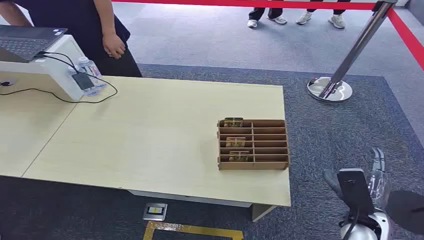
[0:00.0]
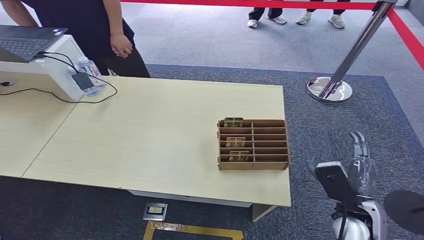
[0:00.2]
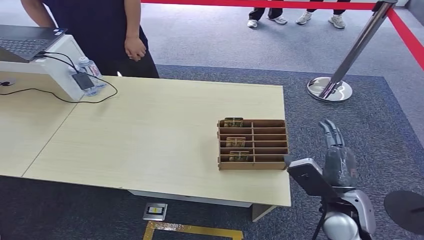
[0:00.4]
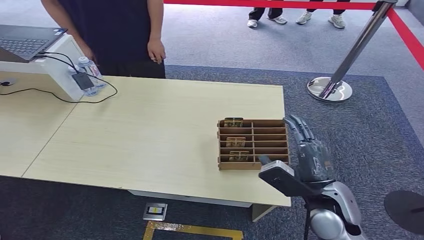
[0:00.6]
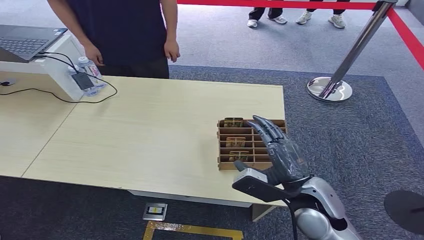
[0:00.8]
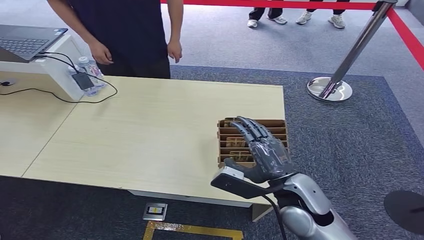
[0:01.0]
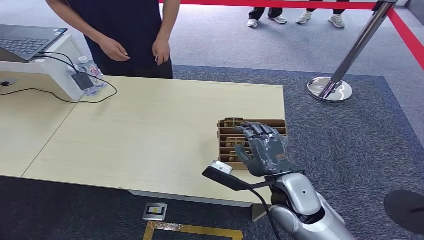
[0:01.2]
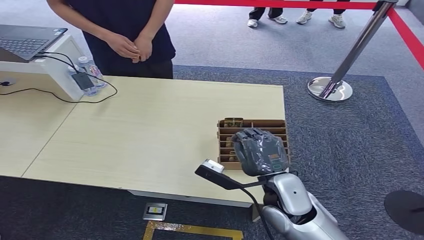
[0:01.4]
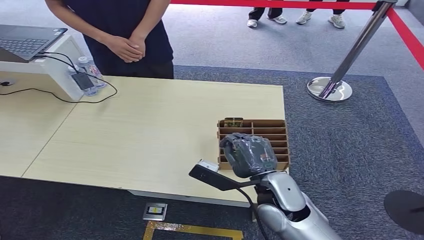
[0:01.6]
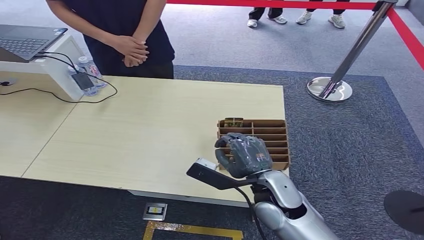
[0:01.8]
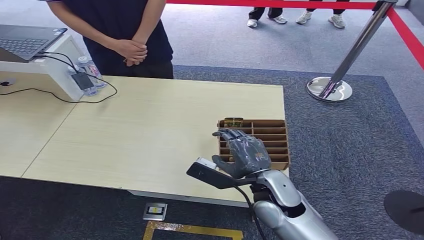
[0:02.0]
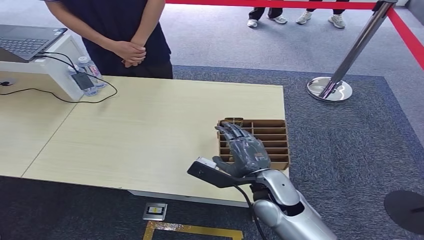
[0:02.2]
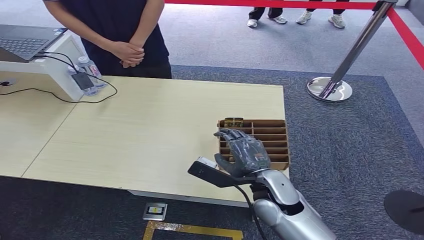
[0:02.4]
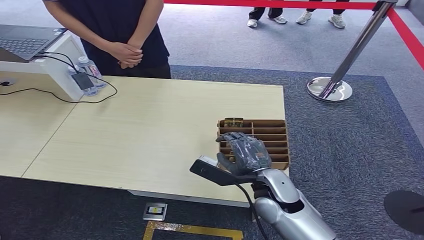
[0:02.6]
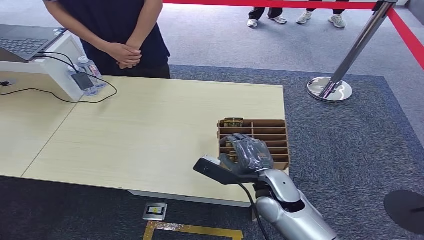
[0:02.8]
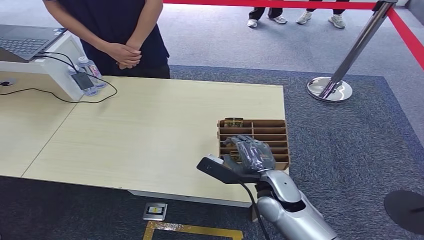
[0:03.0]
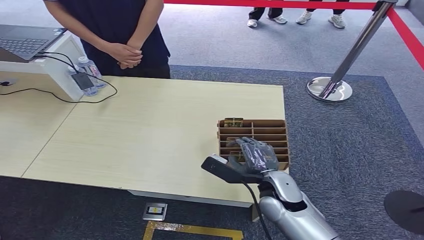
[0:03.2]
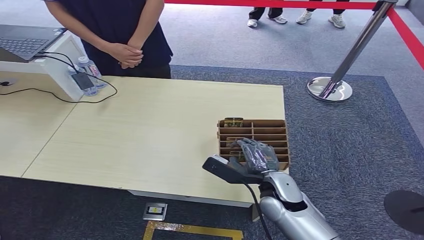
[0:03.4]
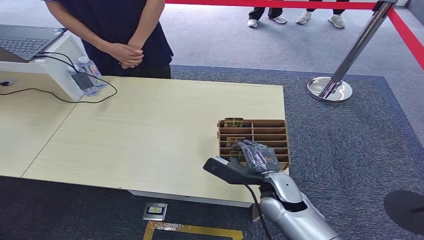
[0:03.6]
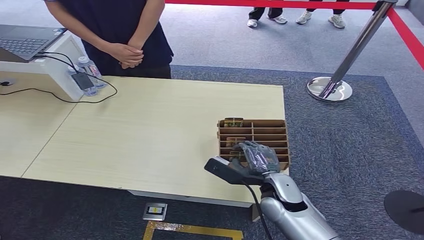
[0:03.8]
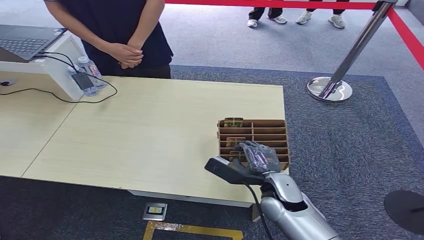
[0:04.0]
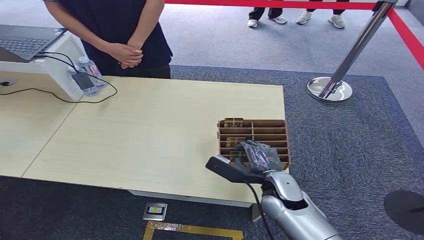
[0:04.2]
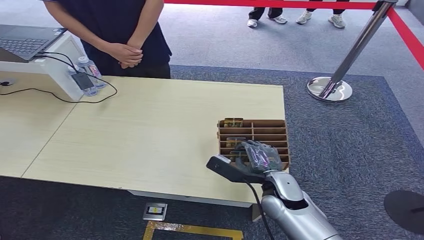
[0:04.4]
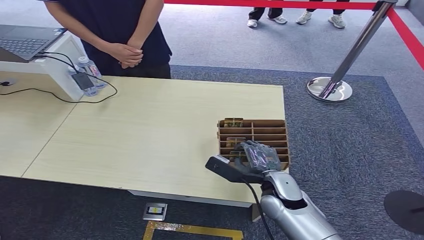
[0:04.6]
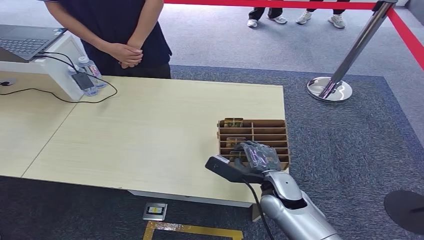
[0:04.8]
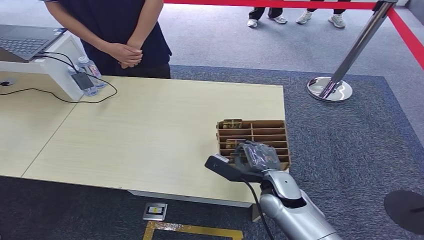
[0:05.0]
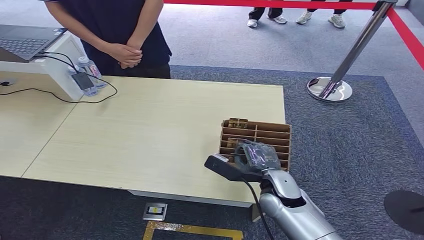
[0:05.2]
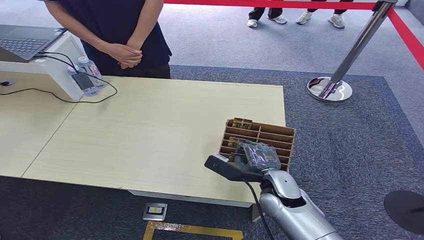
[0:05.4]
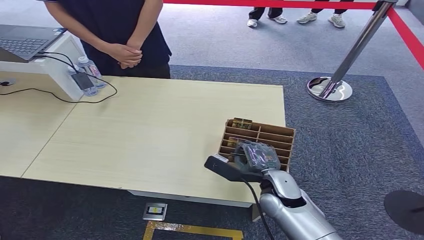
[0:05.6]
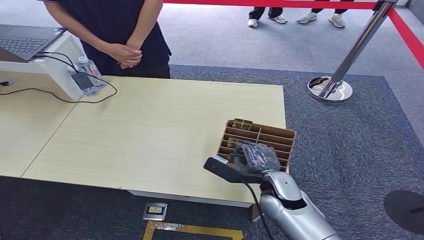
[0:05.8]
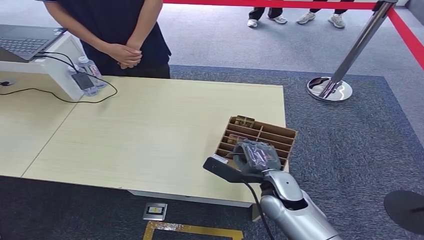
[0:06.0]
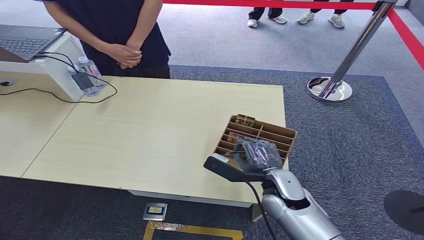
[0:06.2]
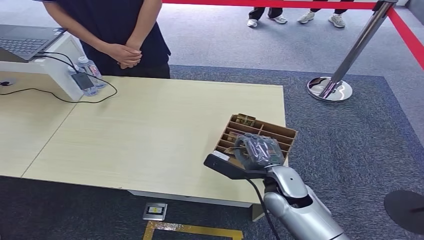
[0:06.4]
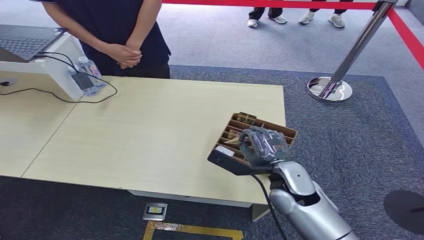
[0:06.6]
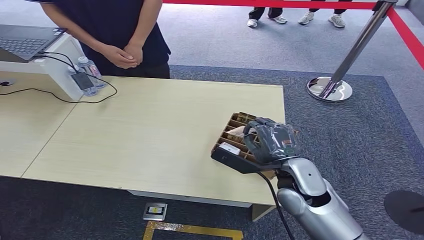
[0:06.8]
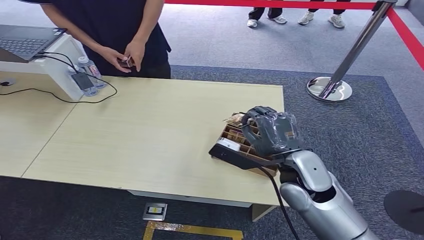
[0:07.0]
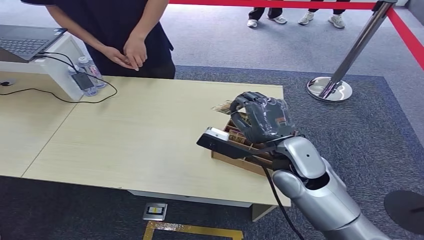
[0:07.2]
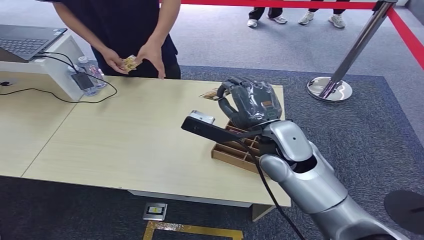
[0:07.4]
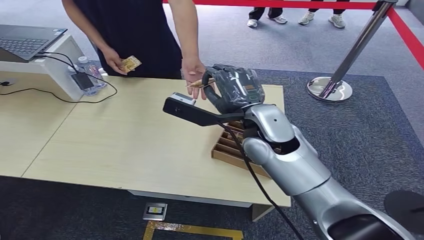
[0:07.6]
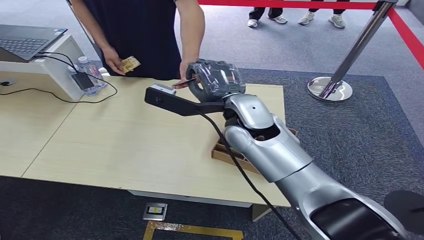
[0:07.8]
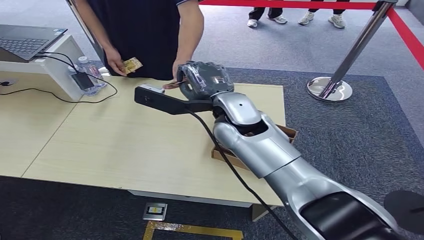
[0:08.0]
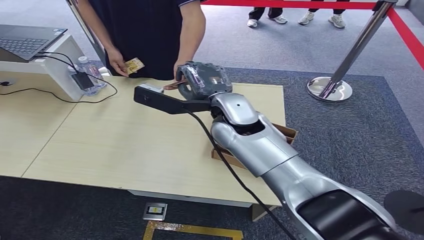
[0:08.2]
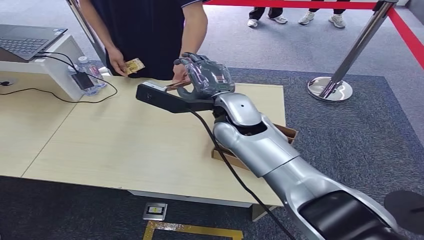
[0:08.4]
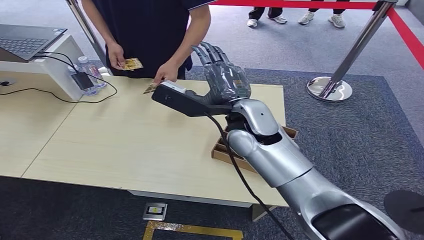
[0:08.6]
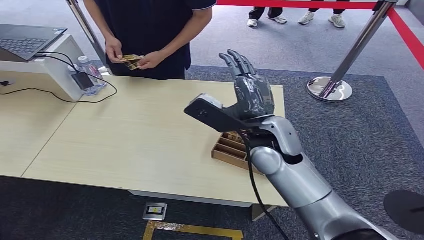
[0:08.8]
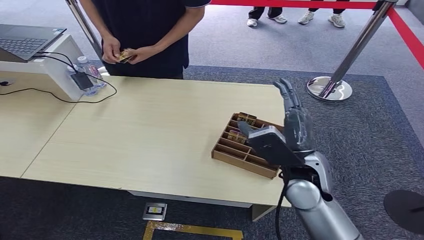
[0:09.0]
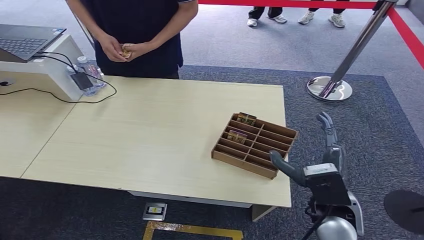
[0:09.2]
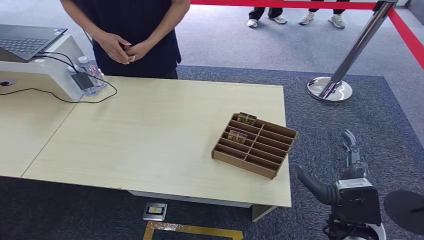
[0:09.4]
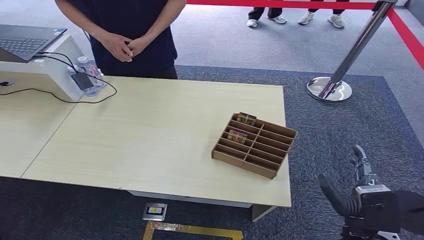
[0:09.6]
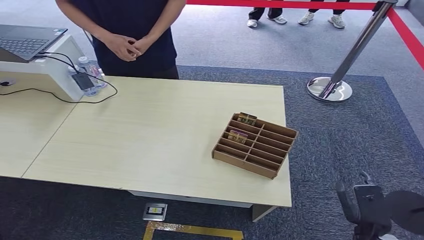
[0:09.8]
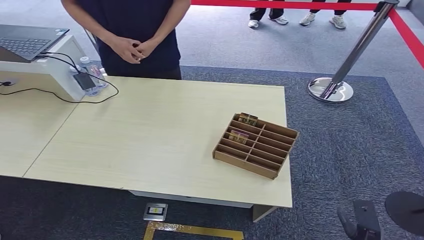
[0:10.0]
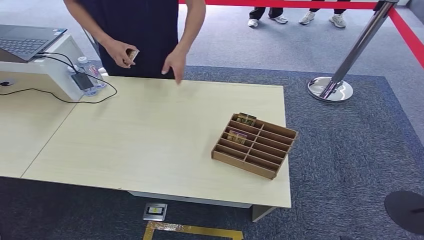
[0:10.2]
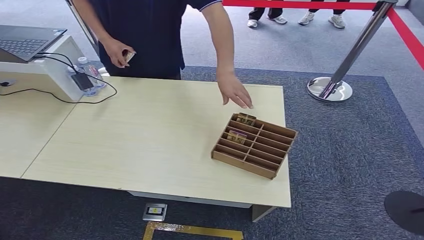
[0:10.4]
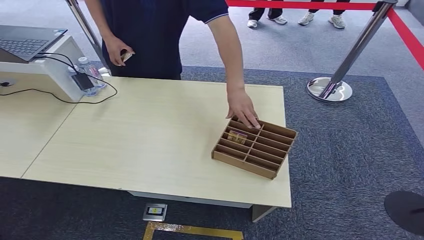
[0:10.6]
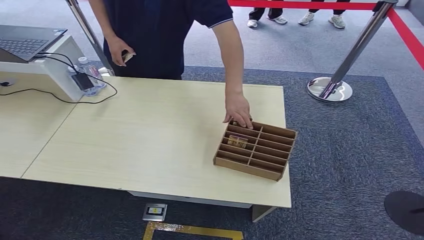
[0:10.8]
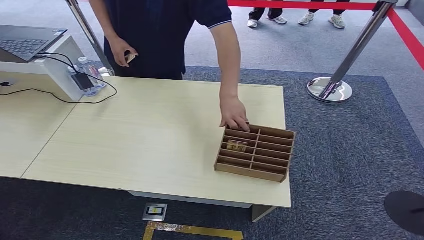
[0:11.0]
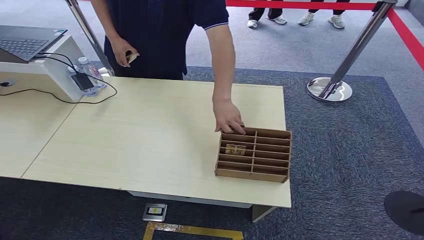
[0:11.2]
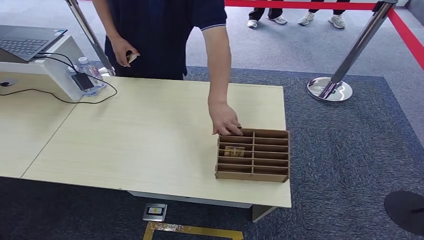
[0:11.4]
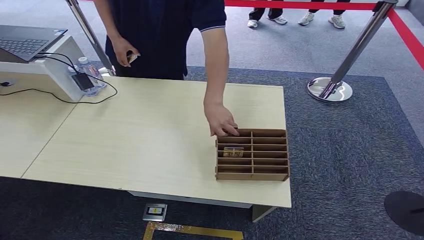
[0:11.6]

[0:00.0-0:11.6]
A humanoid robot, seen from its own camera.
Step, 0:00.0 to 0:06.8: Pick up the room card from the card holder.
Step, 0:07.0 to 0:11.4: Hand the room card to the target.
0:01.4 to 0:02.8: There are only small adjustments of the hands.
0:02.8 to 0:04.4: The hands make only small movements.
0:04.4 to 0:05.8: Neither hand changes place.
0:05.8 to 0:07.2: The right hand moves upward, roughly 15 cm.
0:08.8 to 0:10.2: The right hand goes some 50 cm downward, backward and to the right.
0:10.2 to 0:11.6: The right hand shifts roughly 10 cm to the left.

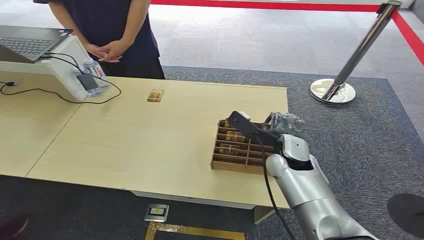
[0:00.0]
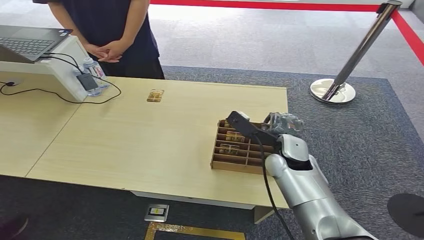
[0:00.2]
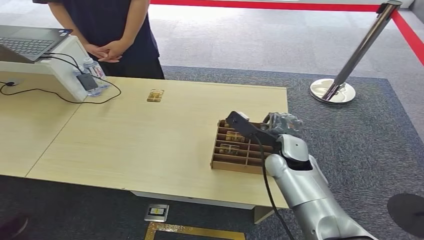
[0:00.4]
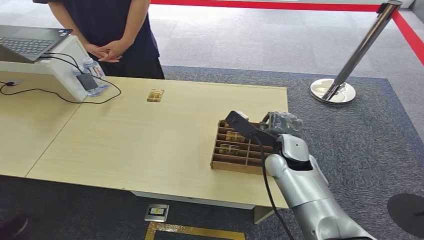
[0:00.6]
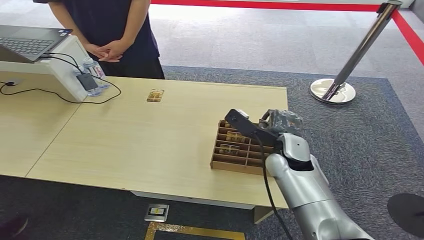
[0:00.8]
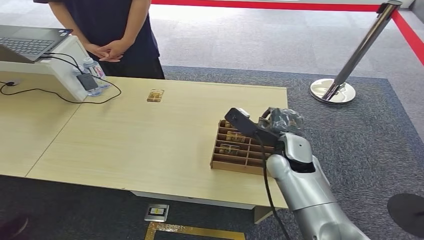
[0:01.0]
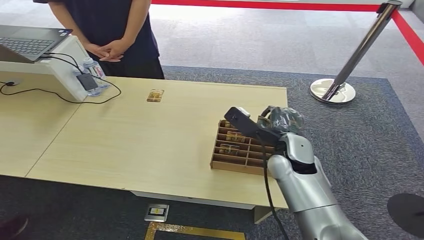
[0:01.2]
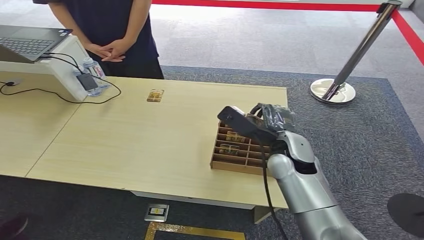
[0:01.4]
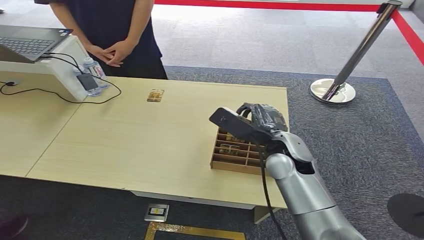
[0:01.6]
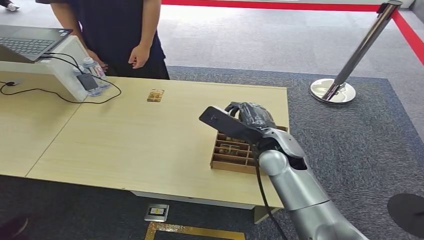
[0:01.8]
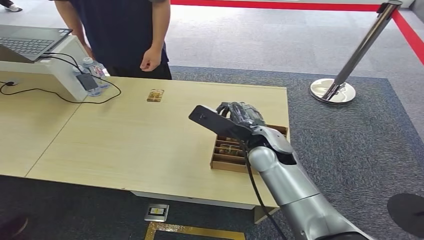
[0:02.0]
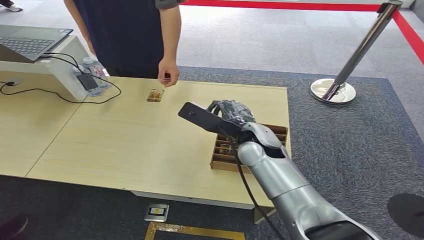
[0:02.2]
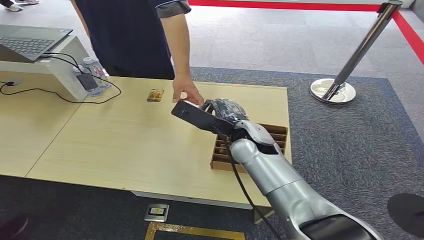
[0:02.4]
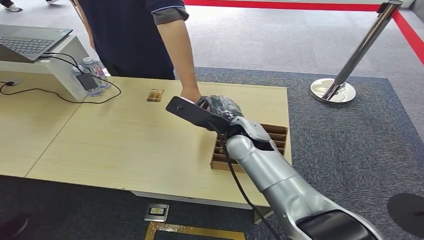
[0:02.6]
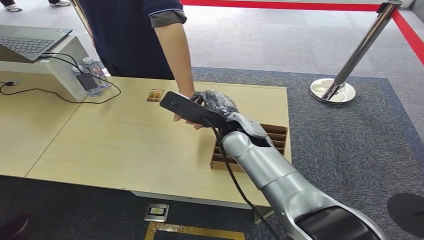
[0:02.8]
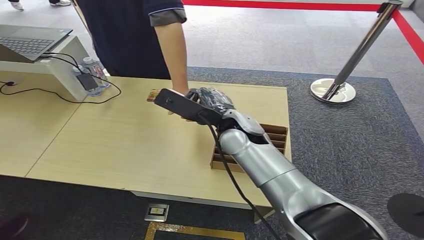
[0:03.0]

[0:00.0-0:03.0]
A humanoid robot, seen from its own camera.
Step, 0:00.0 to 0:02.0: Pick up the room card from the card holder.
Step, 0:02.2 to 0:03.0: Hand the room card to the target.
